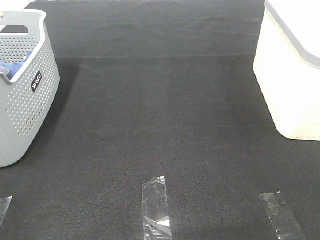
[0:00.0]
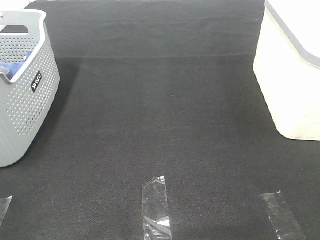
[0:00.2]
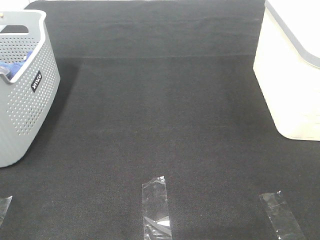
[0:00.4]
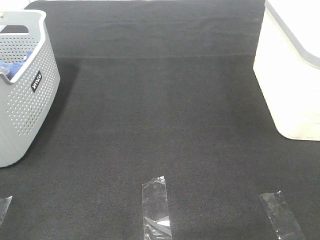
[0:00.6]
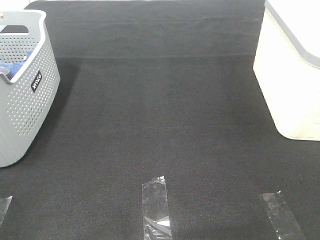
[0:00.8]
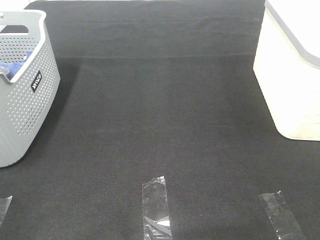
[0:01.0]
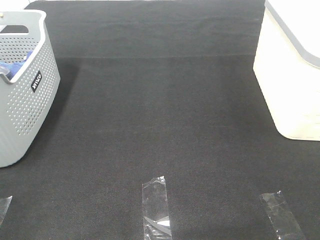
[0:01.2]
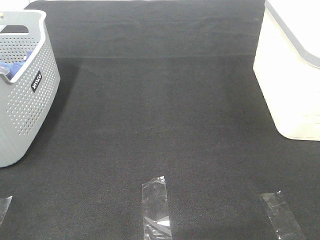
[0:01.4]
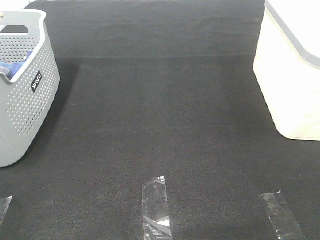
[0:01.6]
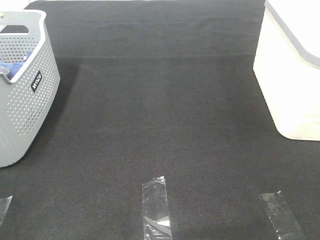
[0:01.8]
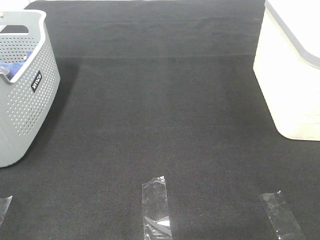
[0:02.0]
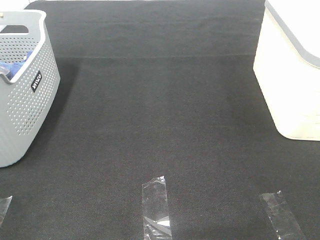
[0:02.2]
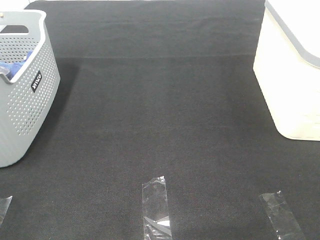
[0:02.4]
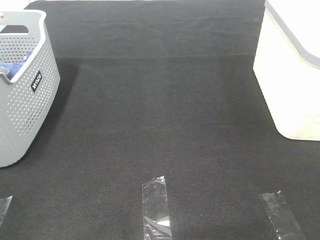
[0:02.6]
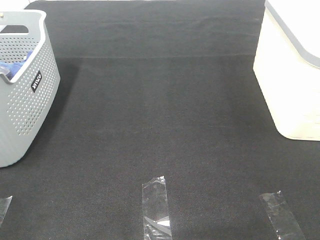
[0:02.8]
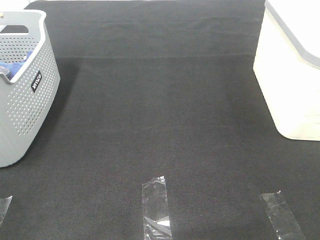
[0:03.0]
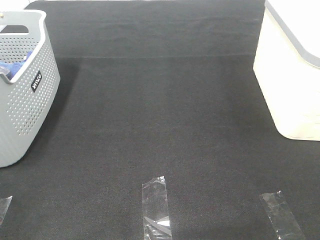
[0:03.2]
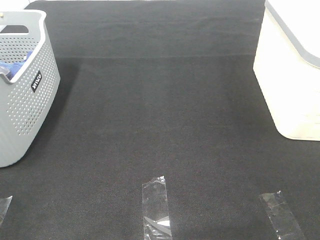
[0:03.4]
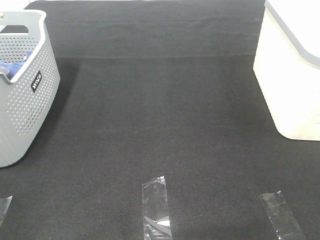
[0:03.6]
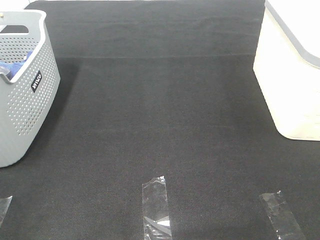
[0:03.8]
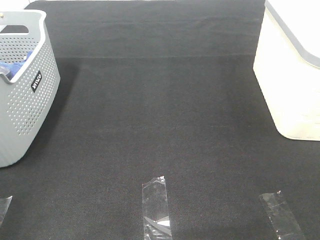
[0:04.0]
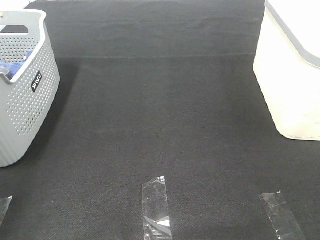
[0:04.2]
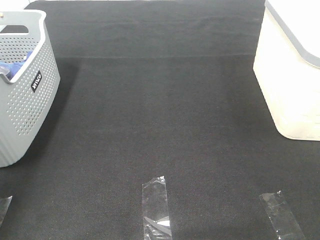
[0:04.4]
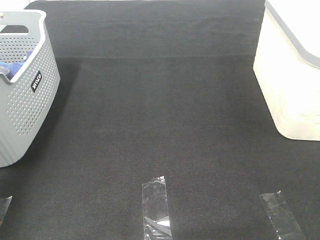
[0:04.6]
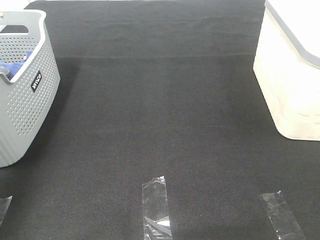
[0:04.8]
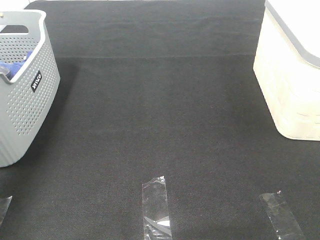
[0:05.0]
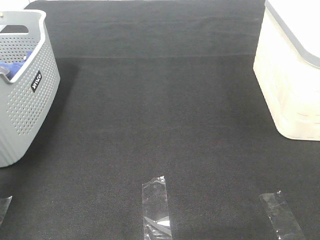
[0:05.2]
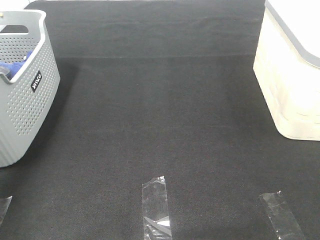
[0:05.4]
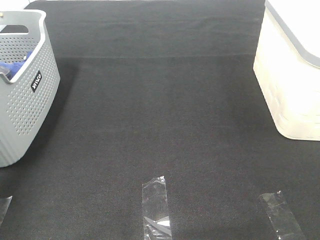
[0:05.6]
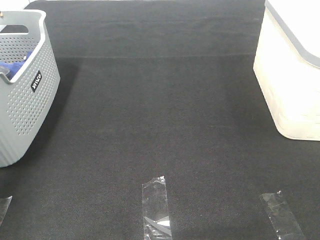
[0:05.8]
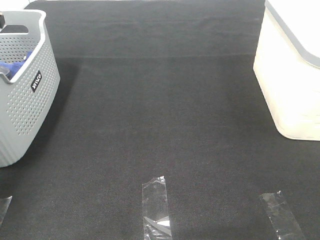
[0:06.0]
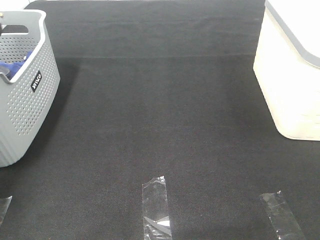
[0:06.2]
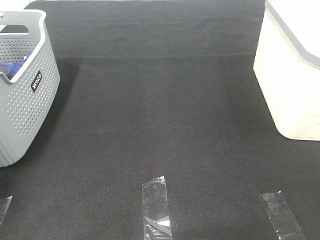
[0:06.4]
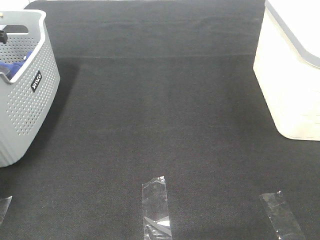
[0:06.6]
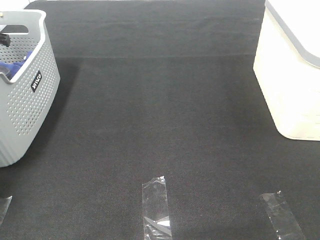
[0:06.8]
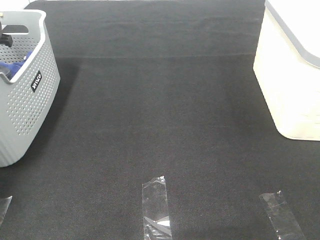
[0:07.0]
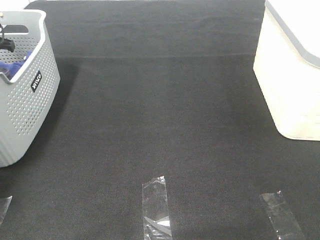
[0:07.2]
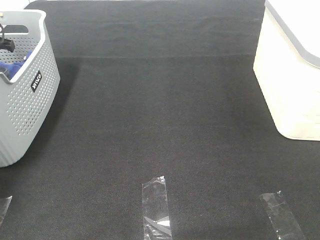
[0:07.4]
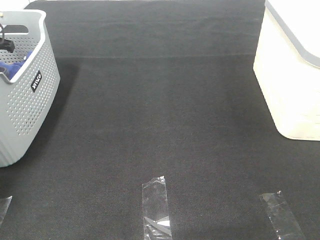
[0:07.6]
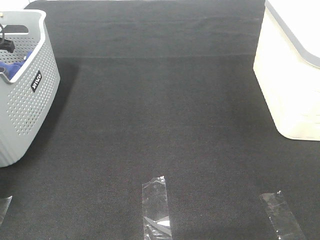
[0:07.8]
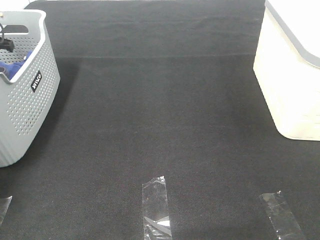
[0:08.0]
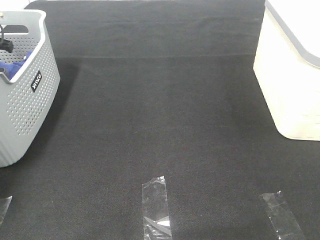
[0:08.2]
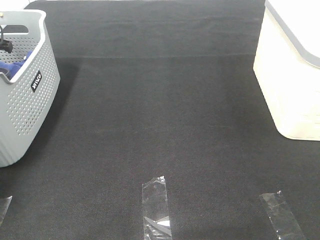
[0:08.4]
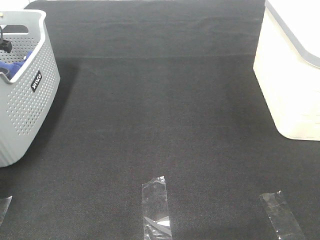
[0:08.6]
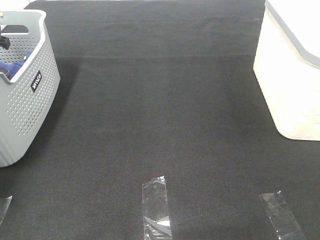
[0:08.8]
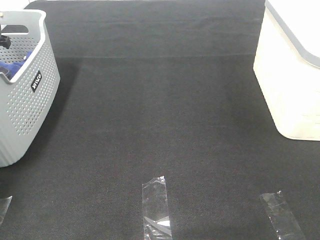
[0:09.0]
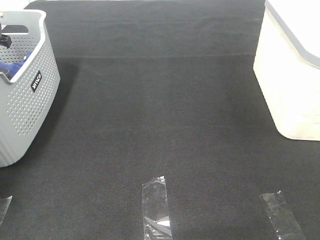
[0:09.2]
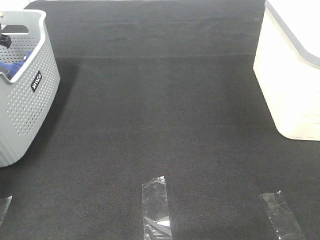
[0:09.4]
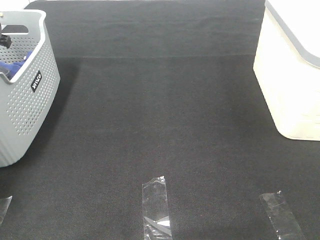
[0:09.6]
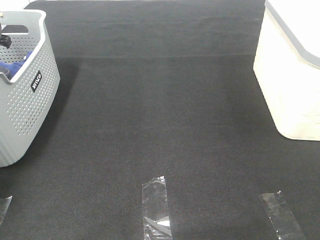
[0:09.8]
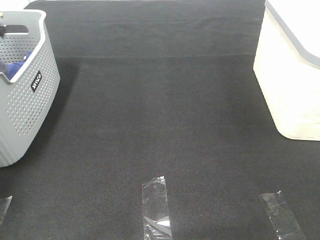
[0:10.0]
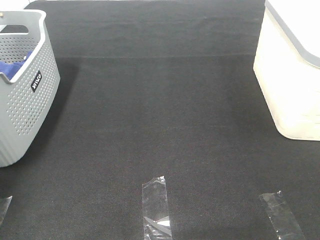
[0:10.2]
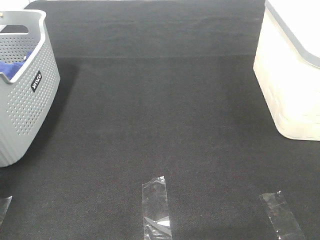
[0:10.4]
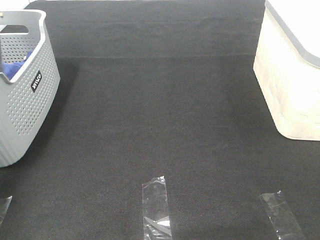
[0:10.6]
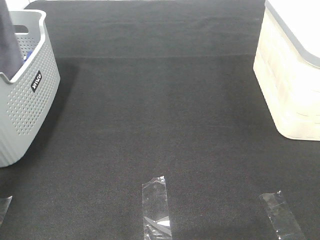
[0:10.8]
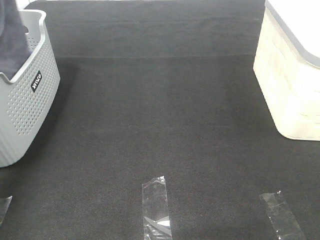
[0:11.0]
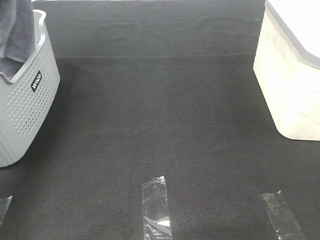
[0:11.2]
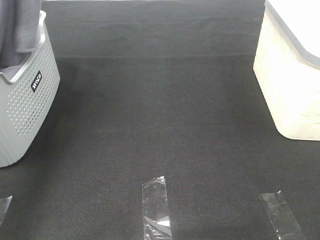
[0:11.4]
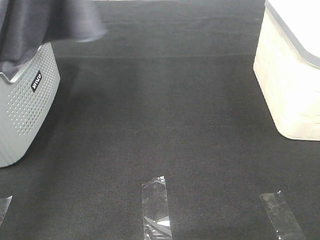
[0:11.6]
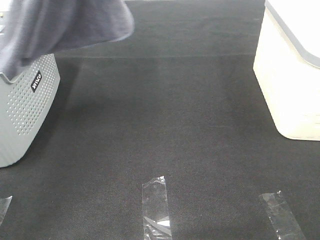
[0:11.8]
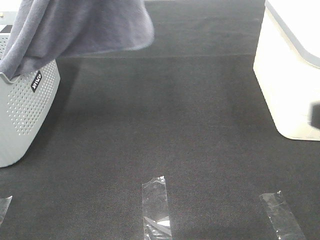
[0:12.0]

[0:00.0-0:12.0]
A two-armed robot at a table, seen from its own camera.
Task of the whole recording: Remove the towel and place it.
0:00.0 to 0:03.0: Both grippers stay put.
0:03.0 to 0:04.4: The left gripper is displaced forward by approximately 20 cm.
0:04.4 to 0:06.0: The left gripper goes roughly 30 cm forward.
0:10.4 to 0:12.0: The left gripper goes some 30 cm to the right, upward and backward; the right gripper shifts roughly 10 cm forward.

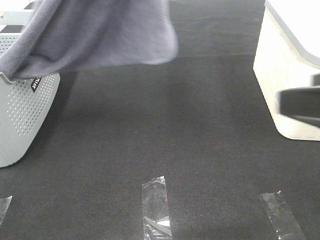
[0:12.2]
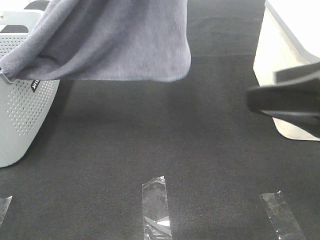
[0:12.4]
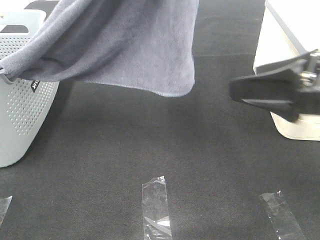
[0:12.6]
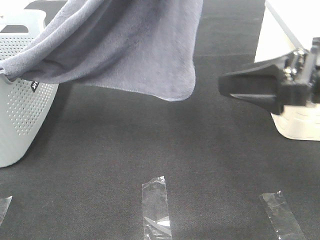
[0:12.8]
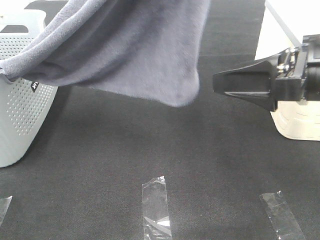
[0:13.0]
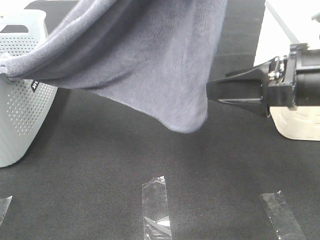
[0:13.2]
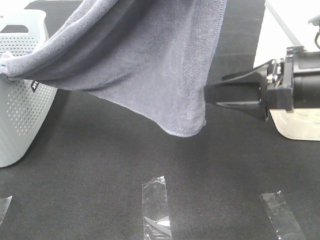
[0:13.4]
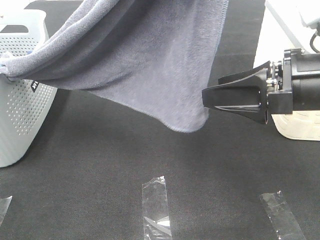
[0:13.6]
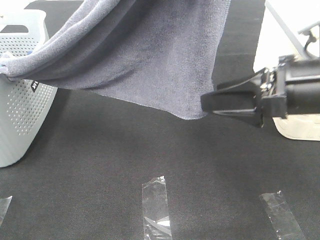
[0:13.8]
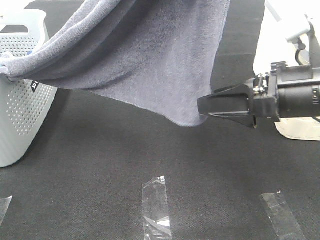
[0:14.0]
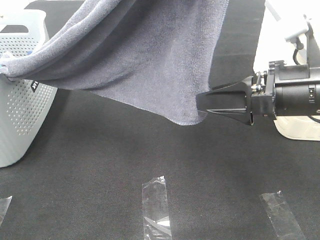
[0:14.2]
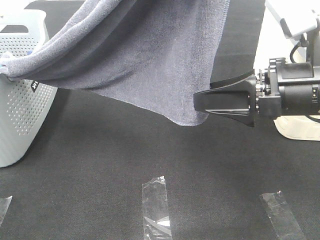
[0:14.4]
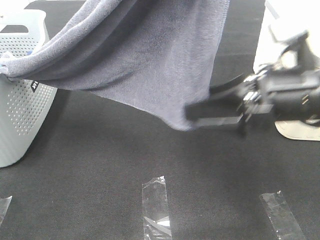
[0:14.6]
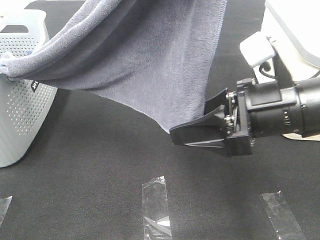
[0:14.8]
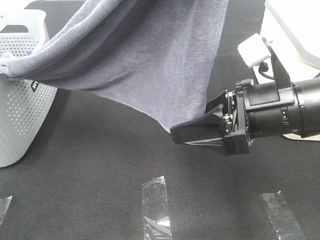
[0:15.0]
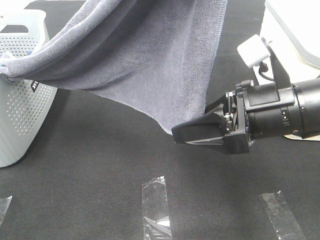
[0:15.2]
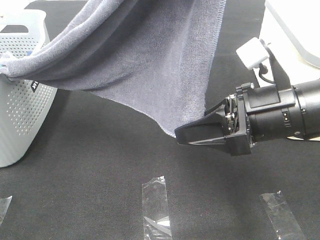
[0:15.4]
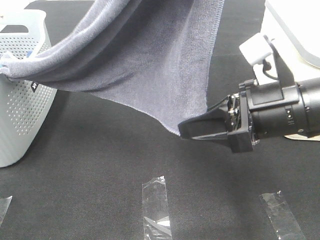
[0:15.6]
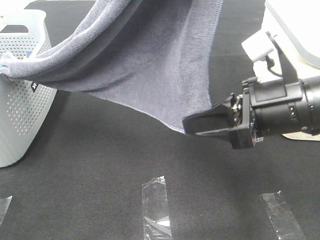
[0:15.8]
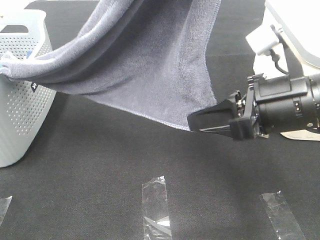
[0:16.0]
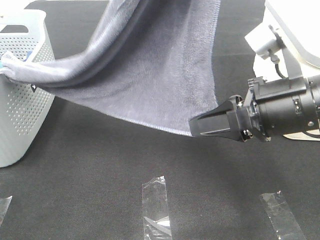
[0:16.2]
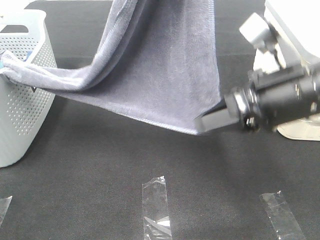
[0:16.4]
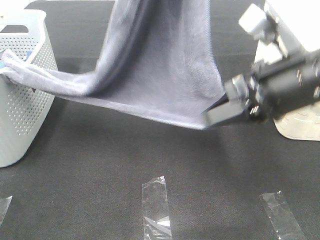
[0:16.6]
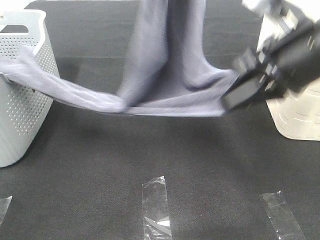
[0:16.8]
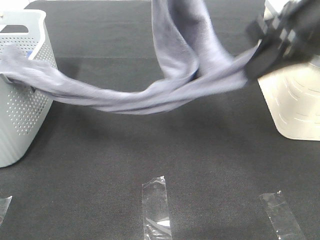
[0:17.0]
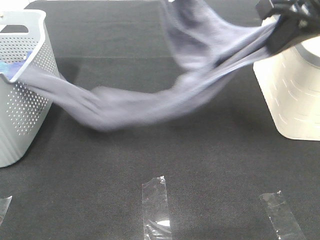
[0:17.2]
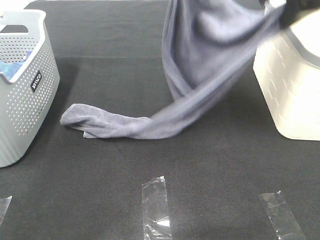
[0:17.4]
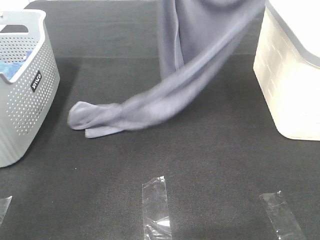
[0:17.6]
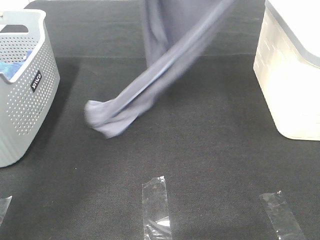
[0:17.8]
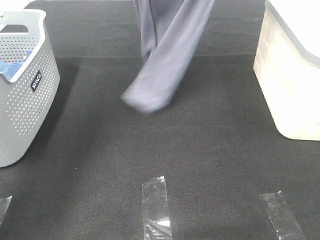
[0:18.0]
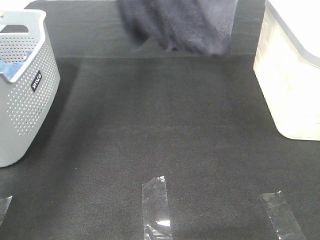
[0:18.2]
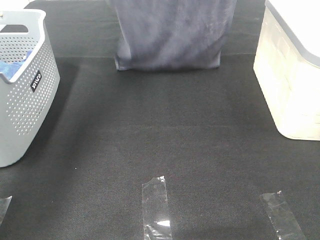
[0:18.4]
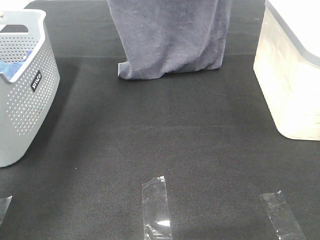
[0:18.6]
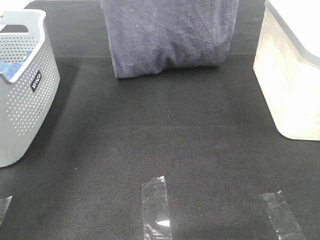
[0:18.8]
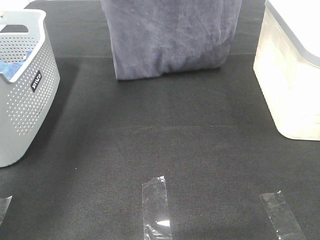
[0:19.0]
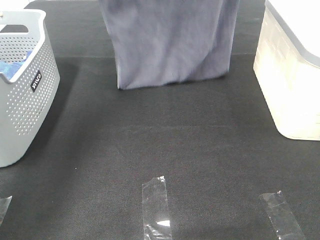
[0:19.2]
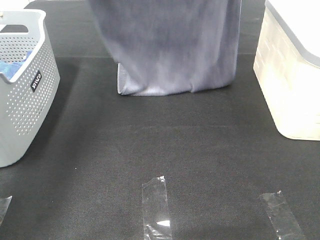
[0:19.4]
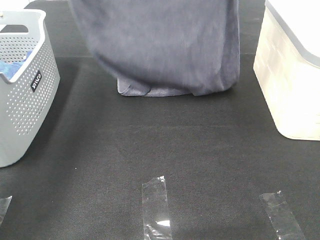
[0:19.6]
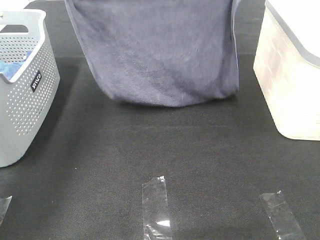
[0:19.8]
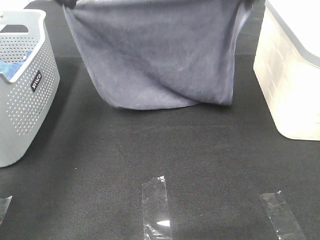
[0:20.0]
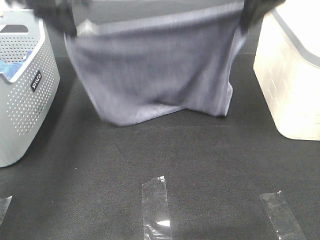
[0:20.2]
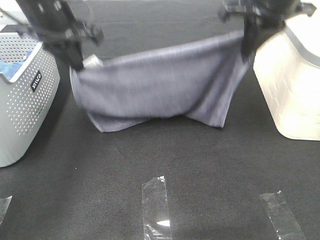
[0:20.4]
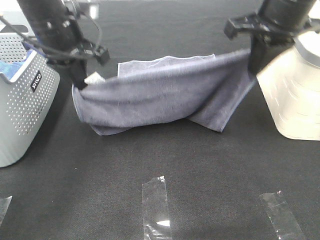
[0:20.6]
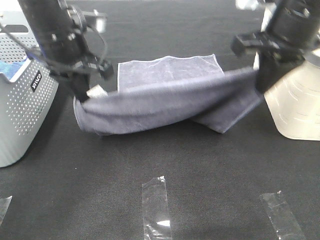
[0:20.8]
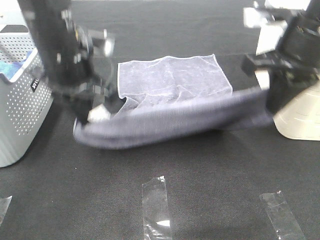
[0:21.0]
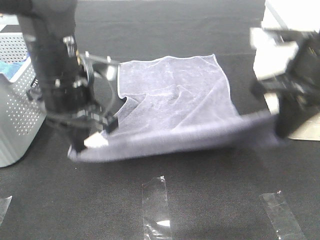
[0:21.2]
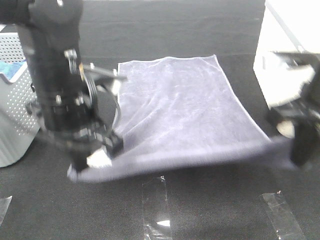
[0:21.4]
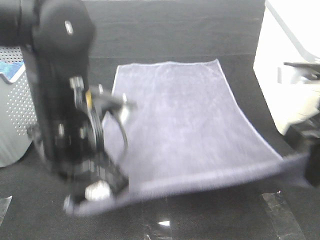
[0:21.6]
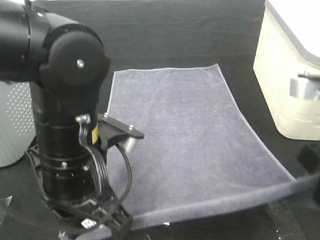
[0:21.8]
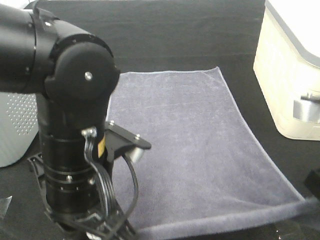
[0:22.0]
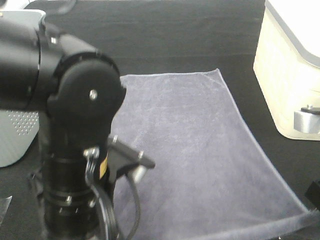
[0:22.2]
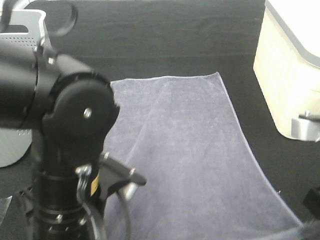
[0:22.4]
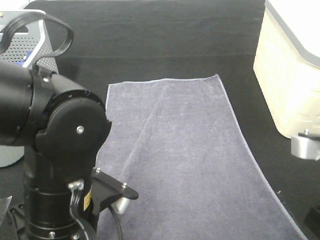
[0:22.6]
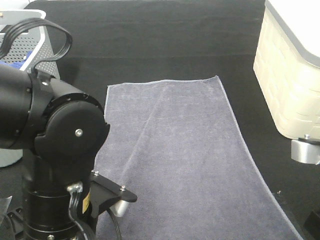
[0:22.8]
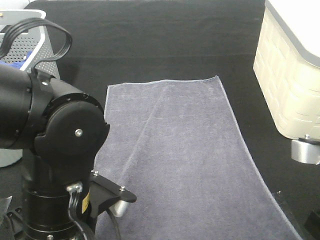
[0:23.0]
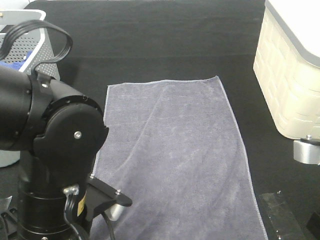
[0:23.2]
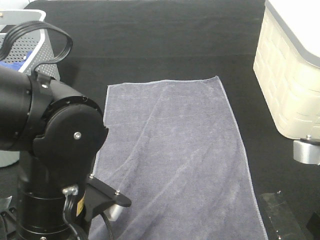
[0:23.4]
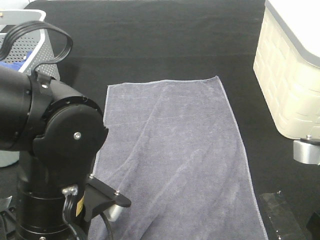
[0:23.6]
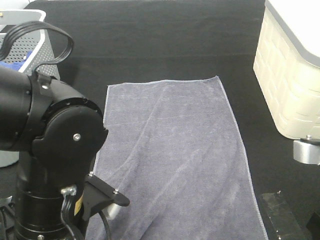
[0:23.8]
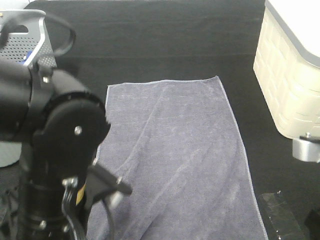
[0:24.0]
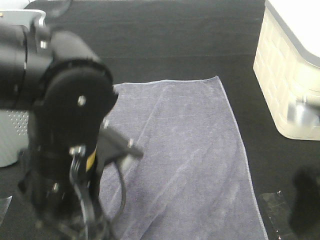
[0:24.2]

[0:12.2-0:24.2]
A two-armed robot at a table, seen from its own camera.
Task of the whole recording: Remove the towel and place it.
Step, 0:12.2 to 0:15.0: Right hand: grab a corner of the grey towel and straighten it.
Step, 0:15.2 to 0:19.0: Left hand: spread the grey towel flat on the table.
Step, 0:15.2 to 0:19.0: Right hand: spread the grey towel flat on the table.
0:12.2 to 0:13.8: The right gripper moves forward and downward, some 15 cm; the left gripper moves backward, roughly 5 cm.
0:13.8 to 0:15.2: The grippers make only small movements.
0:15.2 to 0:16.6: The right gripper heads upward, covering roughly 5 cm, and closes up.
0:16.6 to 0:18.2: The right gripper shifts about 30 cm upward and forward; the left gripper heads forward and to the left, covering roughly 20 cm.
0:18.2 to 0:19.8: Both grippers travel together downward, about 10 cm.
0:19.8 to 0:21.2: The right gripper travels downward and backward by some 20 cm; the left gripper shifts roughly 20 cm backward, downward and to the right.
0:21.2 to 0:22.6: The right gripper heads backward and downward, covering approximately 15 cm. The left gripper shifts some 15 cm backward.
0:22.6 to 0:24.2: The right gripper opens its fingers; the left gripper ends up roughly 5 cm from where it was, and opens up.
